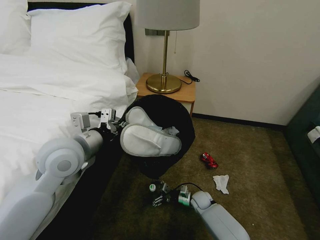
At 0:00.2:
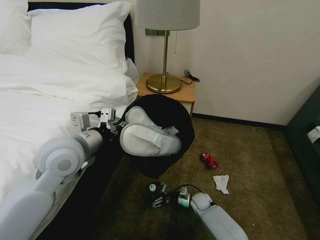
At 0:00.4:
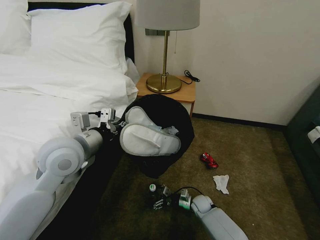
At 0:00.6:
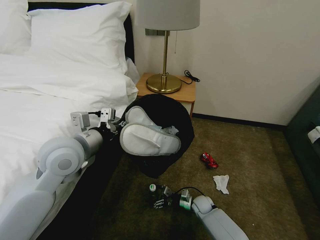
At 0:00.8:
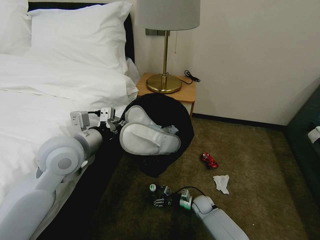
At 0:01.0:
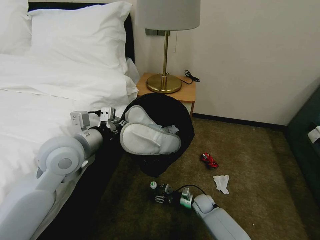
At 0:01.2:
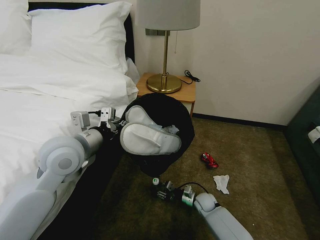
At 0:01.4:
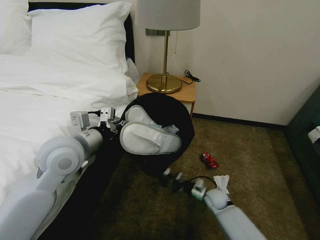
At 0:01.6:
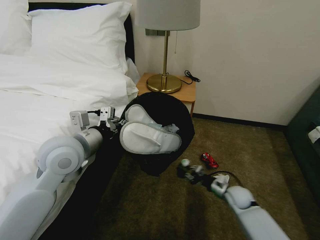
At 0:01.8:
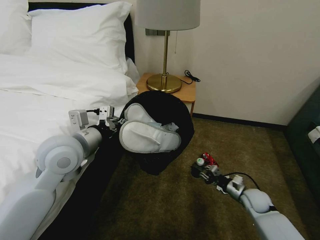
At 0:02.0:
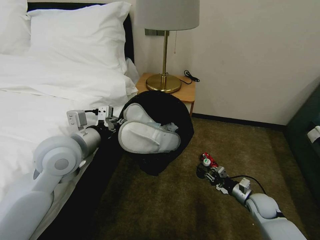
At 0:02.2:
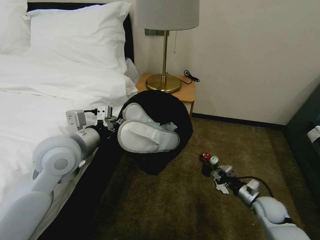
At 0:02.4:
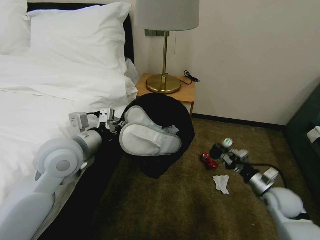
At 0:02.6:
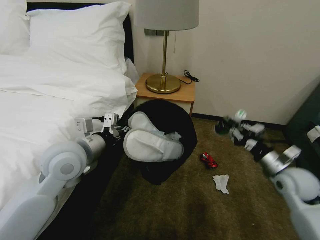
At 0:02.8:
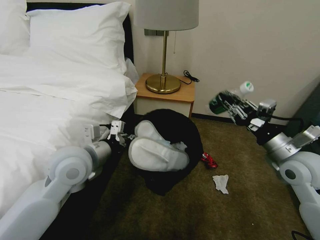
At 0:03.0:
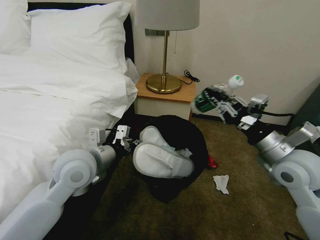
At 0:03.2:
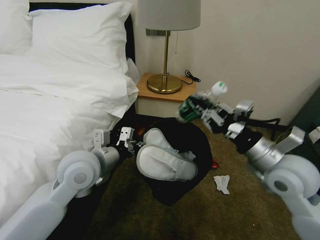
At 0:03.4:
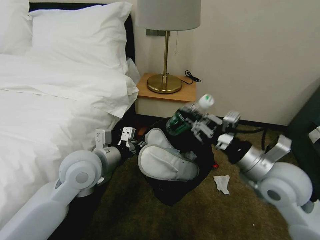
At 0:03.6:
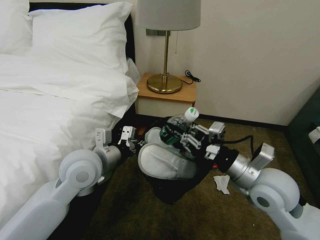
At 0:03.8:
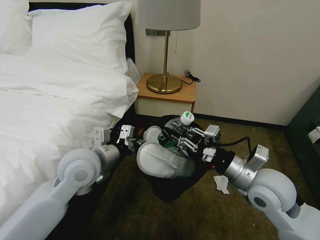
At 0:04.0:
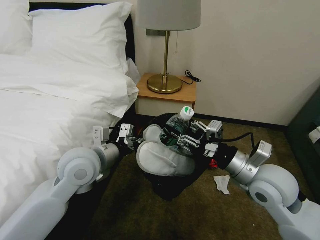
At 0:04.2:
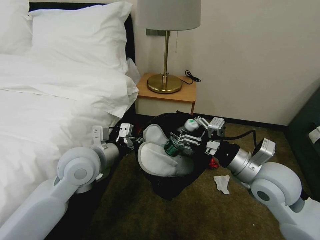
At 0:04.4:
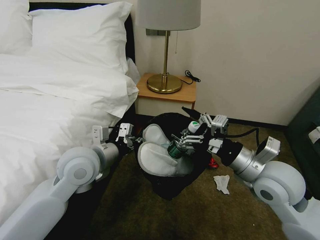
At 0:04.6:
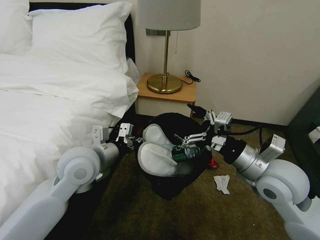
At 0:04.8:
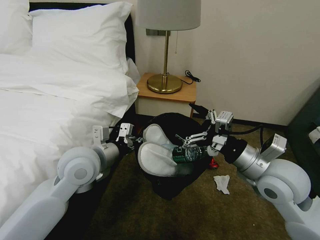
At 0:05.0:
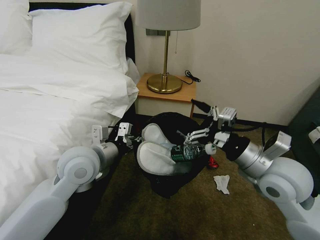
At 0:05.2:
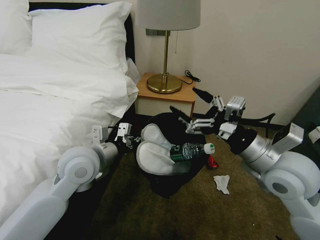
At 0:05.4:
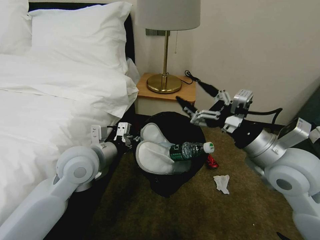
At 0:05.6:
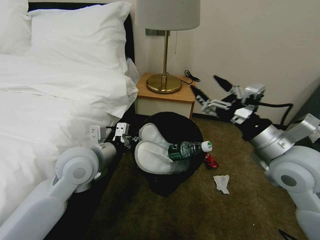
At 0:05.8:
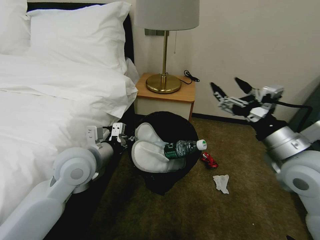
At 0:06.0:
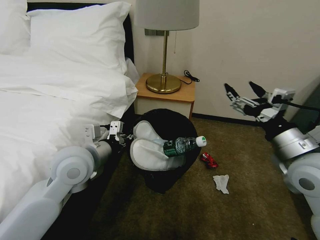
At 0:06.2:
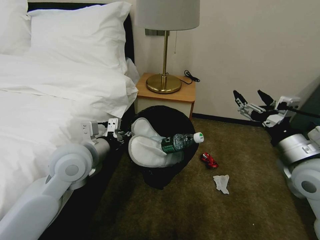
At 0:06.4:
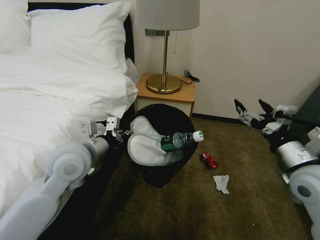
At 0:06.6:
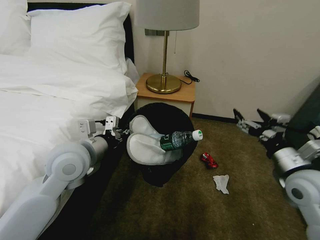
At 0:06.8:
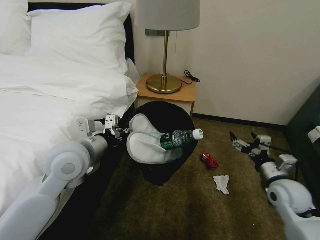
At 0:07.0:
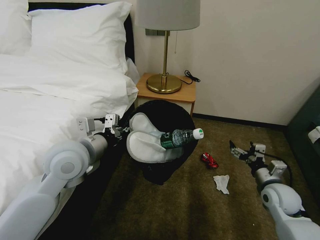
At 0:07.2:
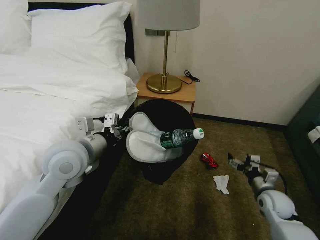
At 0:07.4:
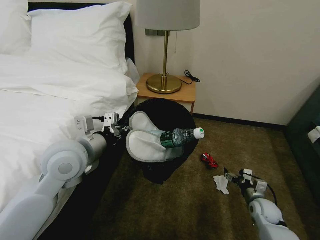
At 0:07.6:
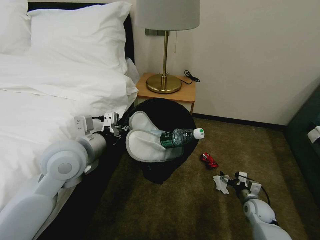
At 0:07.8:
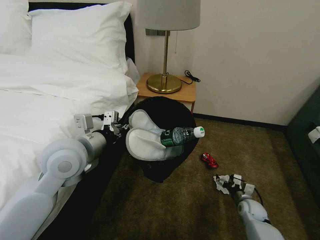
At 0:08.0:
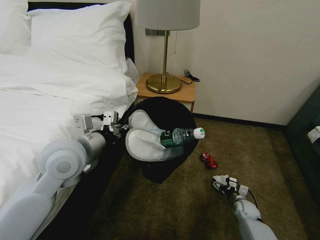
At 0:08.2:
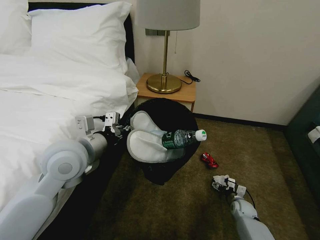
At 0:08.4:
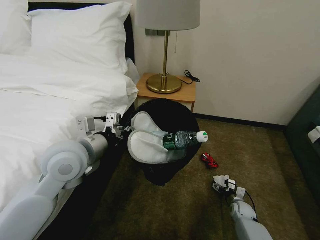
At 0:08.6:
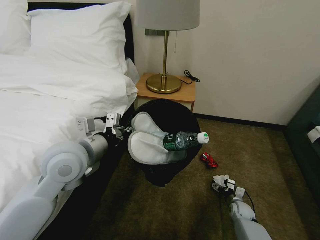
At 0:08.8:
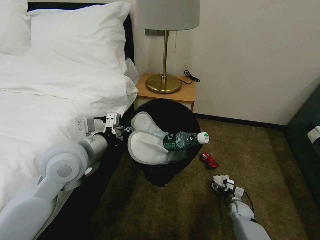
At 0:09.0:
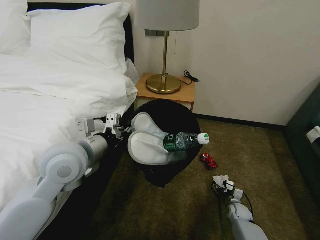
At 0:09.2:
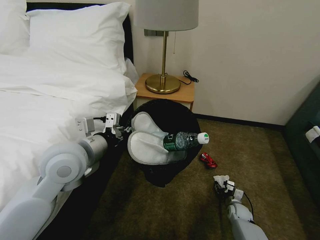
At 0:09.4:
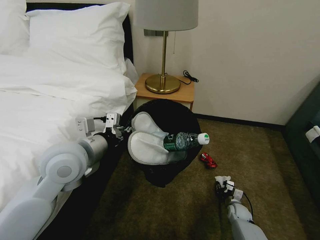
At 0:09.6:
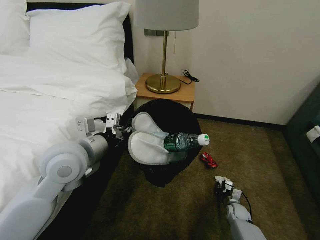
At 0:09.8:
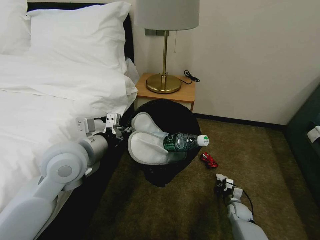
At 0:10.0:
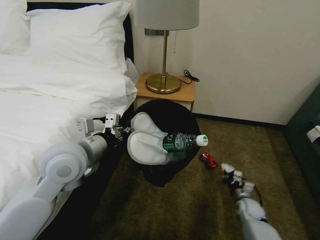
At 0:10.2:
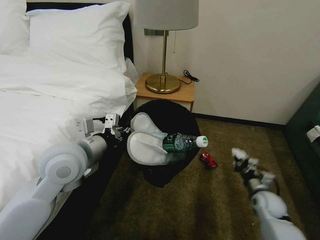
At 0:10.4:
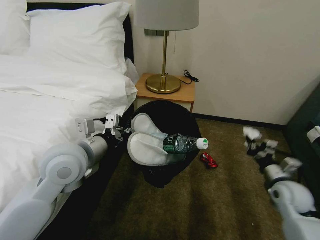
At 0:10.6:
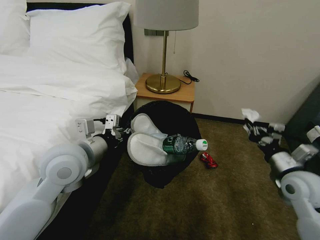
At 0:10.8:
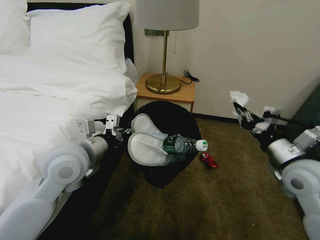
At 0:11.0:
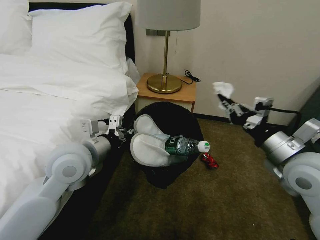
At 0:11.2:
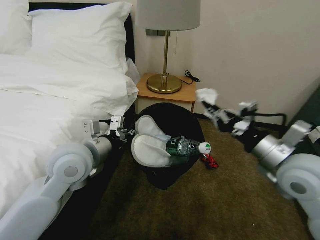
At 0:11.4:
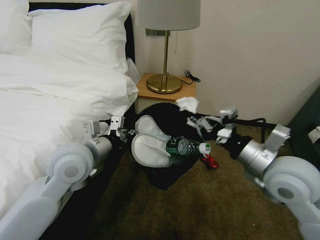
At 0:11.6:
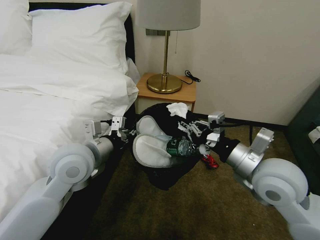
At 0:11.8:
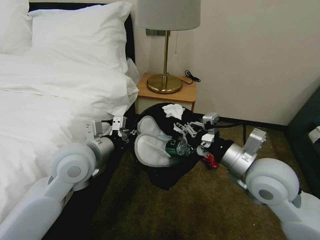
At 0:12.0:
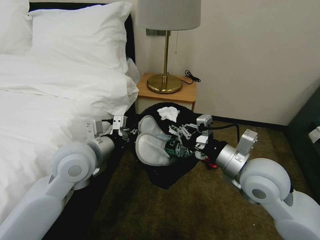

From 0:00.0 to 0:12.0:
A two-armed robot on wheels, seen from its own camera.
Task of the whole recording: Pick up the trash bin, then pick up the garbage on the floor and place it into the trash bin.
From 0:00.0 to 0:01.6: The right gripper moves to the right and upward, roughly 15 cm, and closes its fingers.
From 0:01.6 to 0:03.0: The right gripper is displaced upward by some 30 cm.
From 0:03.0 to 0:04.4: The right gripper is displaced to the left by some 5 cm, and opens.
From 0:04.4 to 0:06.0: The right gripper is displaced to the right by approximately 5 cm.
From 0:06.0 to 0:07.6: The right gripper moves downward, roughly 35 cm.
From 0:07.6 to 0:09.0: The right gripper is displaced downward by approximately 10 cm.
From 0:09.0 to 0:10.4: The right gripper goes approximately 20 cm upward, and closes its fingers.
From 0:10.4 to 0:12.0: The right gripper is displaced upward and to the left by about 30 cm.

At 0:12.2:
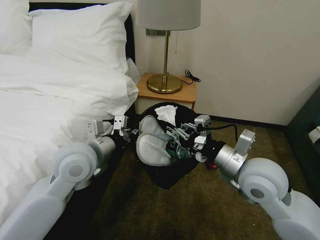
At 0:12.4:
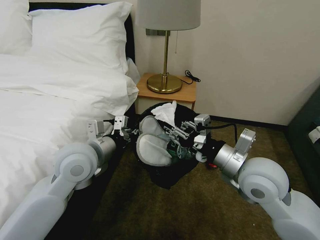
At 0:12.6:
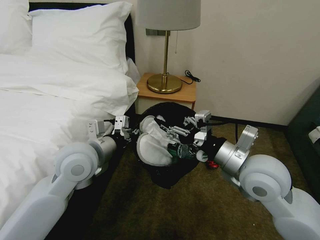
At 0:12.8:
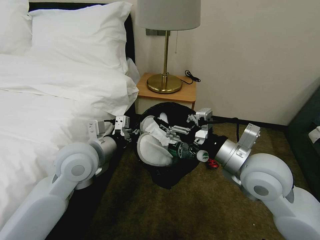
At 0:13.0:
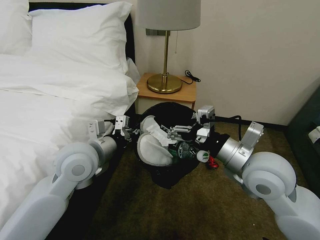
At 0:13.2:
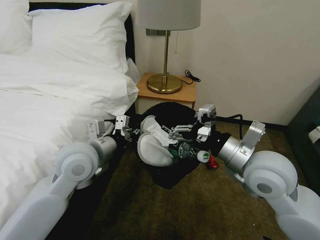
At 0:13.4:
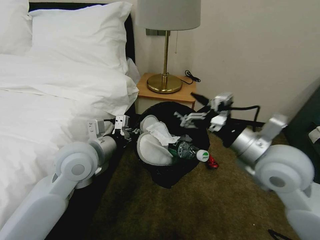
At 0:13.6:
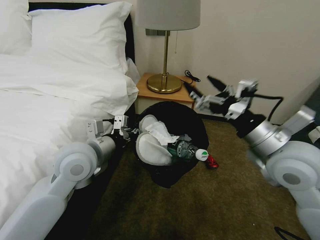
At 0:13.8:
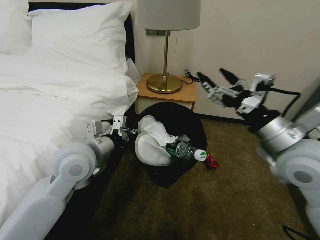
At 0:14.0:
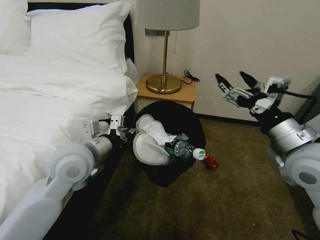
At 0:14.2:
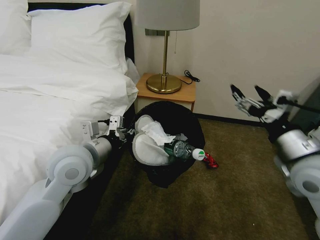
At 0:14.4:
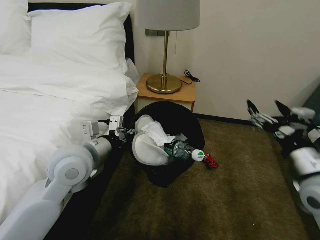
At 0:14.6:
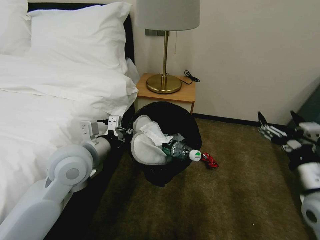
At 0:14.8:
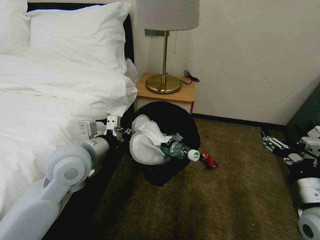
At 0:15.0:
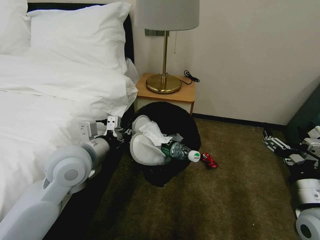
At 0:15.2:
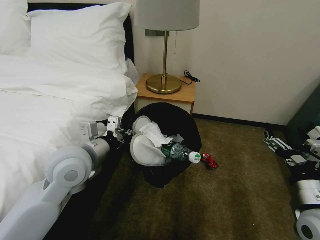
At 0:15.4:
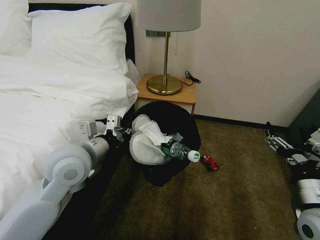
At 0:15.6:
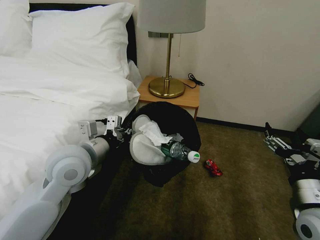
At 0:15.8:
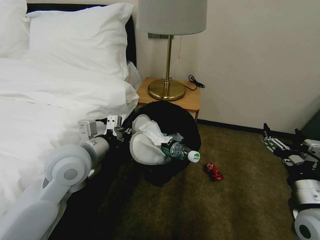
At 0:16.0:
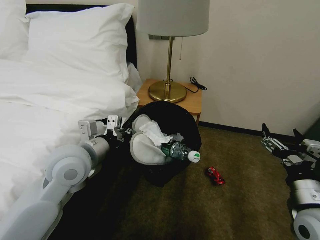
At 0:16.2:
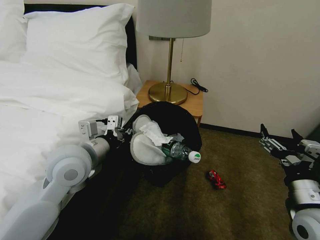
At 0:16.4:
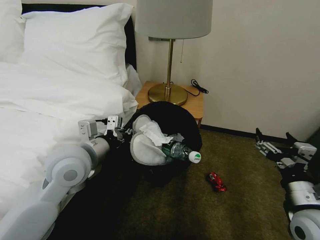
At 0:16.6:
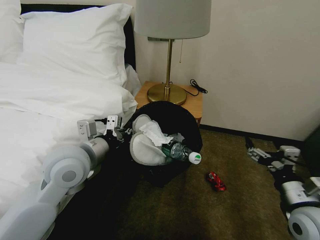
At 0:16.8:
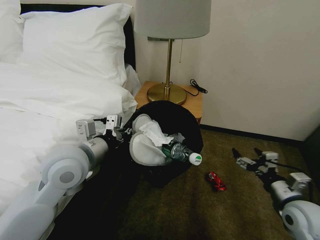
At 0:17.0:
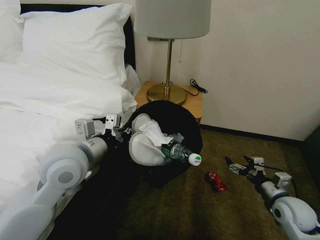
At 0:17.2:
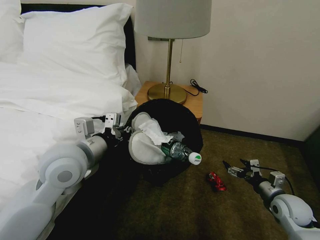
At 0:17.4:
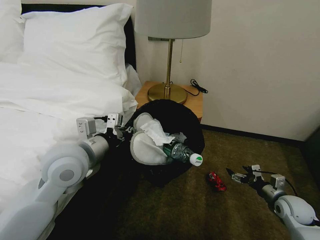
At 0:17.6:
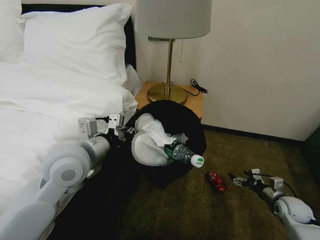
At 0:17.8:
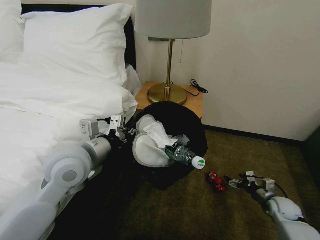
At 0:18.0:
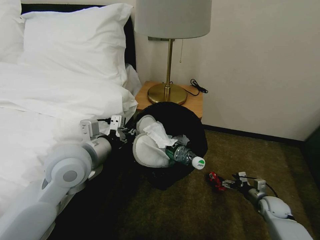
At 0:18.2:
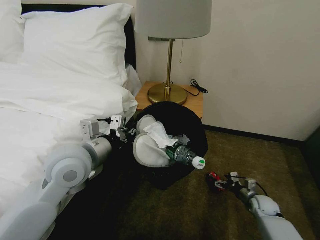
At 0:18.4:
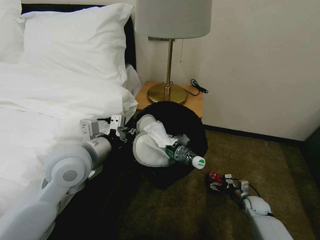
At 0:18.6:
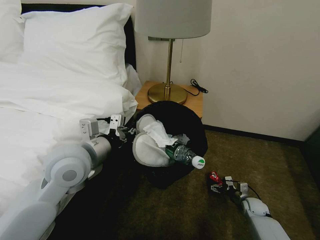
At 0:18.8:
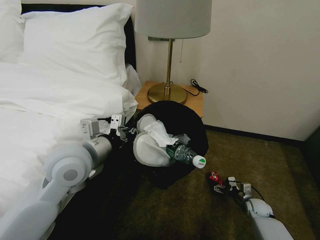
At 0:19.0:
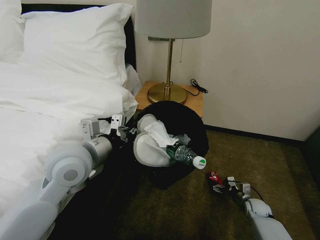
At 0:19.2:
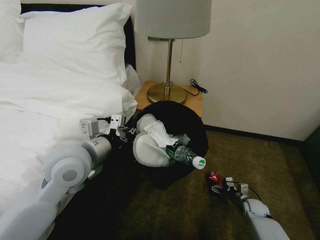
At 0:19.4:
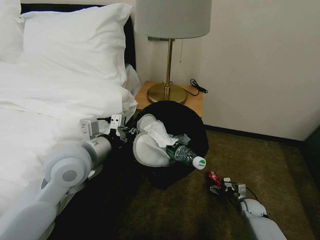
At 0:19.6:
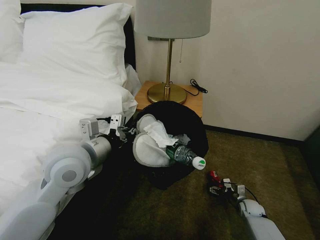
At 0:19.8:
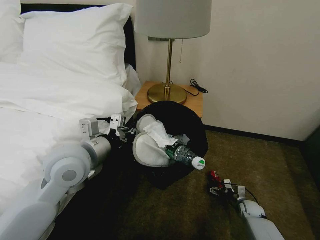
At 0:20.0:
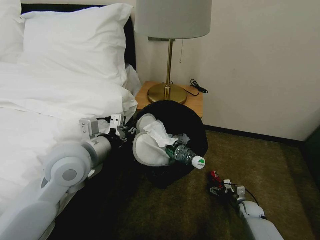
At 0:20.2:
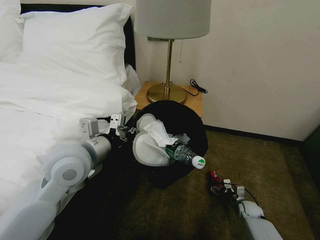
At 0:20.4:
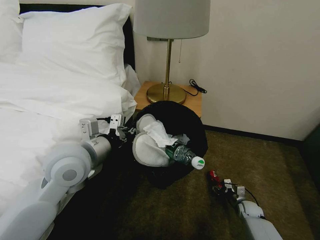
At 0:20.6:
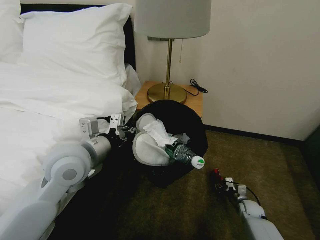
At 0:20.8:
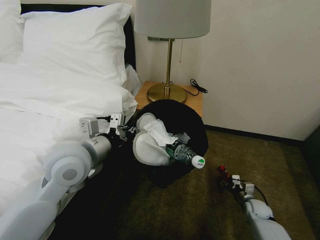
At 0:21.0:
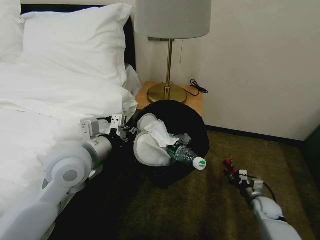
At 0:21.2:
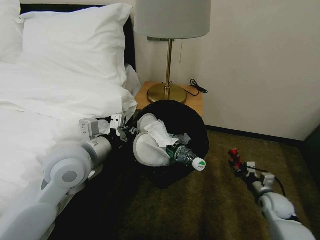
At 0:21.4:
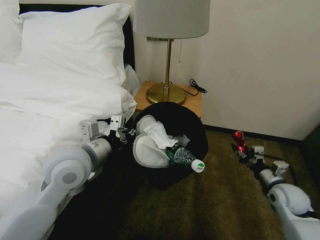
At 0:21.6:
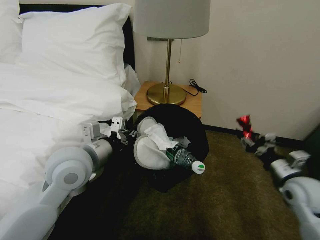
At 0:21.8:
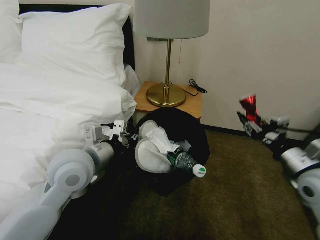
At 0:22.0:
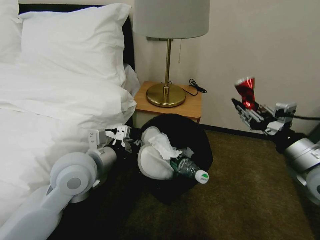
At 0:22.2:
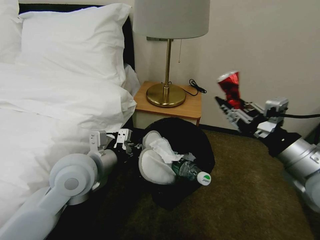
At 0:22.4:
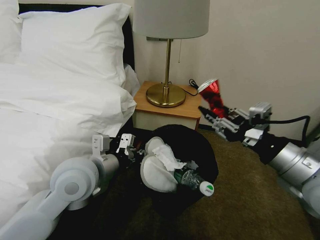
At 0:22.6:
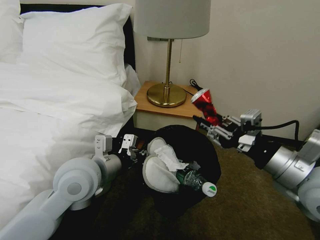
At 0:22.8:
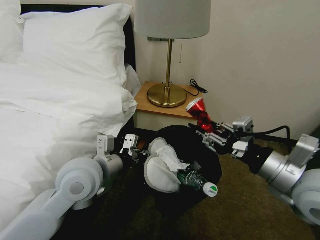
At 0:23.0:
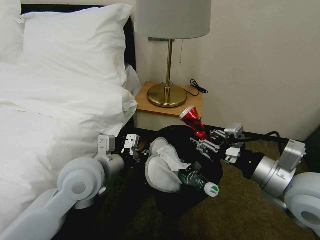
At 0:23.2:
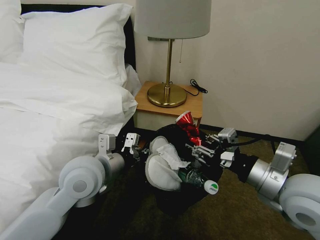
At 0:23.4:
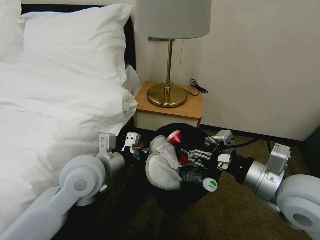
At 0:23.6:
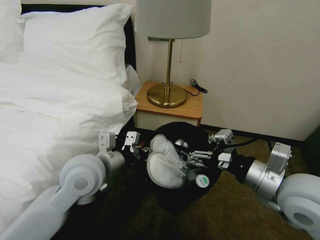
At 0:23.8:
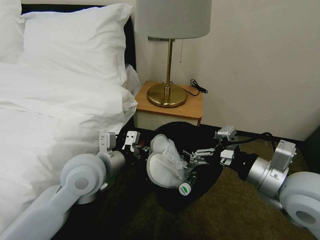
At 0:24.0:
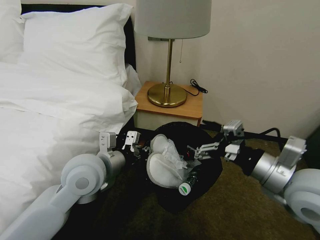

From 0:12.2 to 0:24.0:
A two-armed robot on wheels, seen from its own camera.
Task of the whole recording: Pick up the trash bin, then pick up the garbage on the floor and place it into the trash bin.
From 0:12.2 to 0:13.6: The right gripper heads upward, covering some 5 cm, and opens.
From 0:13.6 to 0:15.2: The right gripper travels downward, backward and to the right by roughly 15 cm.
From 0:15.2 to 0:16.6: The grippers move only a little.
From 0:16.6 to 0:18.2: The right gripper is displaced downward and forward by about 30 cm.
From 0:18.2 to 0:19.6: The right gripper heads downward, covering approximately 5 cm.
From 0:19.6 to 0:21.0: The right gripper heads upward, covering roughly 5 cm, and closes.
From 0:21.0 to 0:22.6: The right gripper is displaced upward by approximately 40 cm.
From 0:22.6 to 0:24.0: The right gripper opens up.
